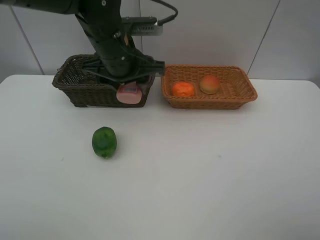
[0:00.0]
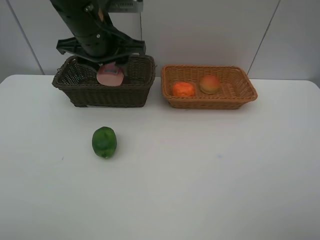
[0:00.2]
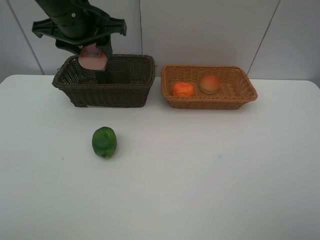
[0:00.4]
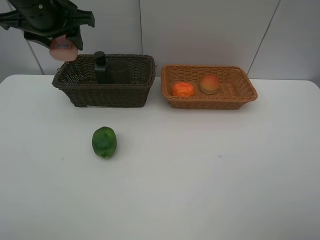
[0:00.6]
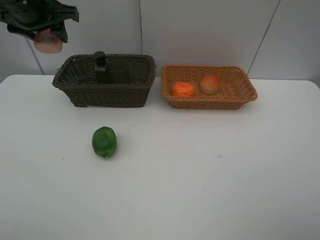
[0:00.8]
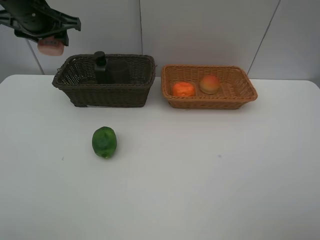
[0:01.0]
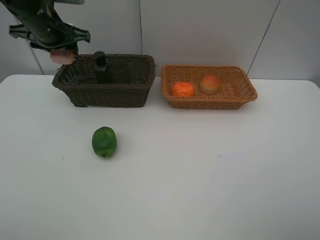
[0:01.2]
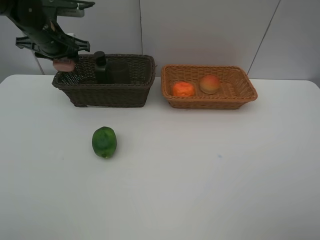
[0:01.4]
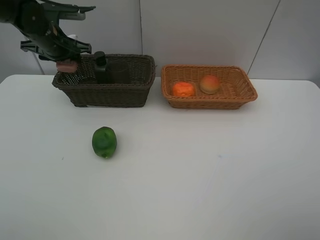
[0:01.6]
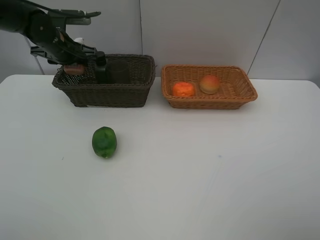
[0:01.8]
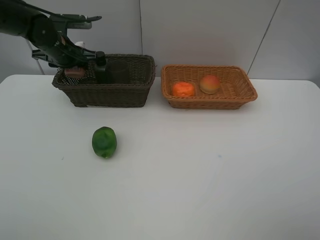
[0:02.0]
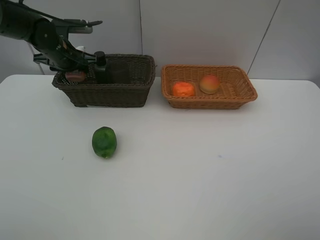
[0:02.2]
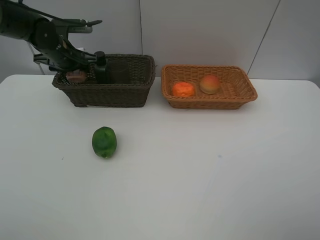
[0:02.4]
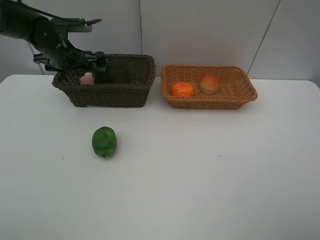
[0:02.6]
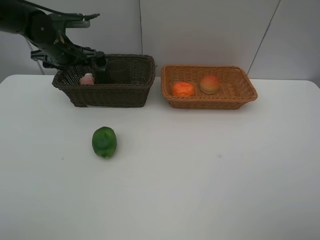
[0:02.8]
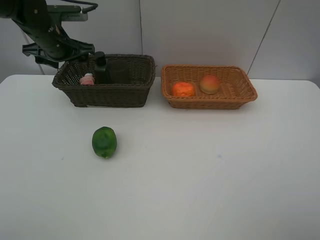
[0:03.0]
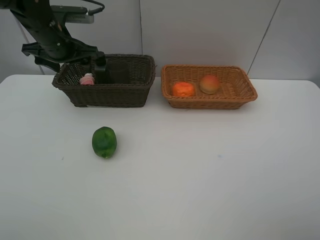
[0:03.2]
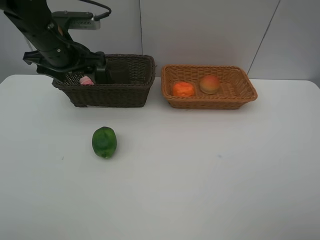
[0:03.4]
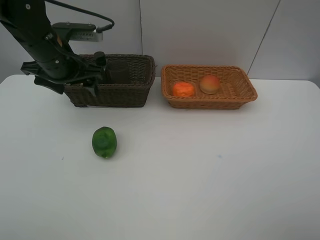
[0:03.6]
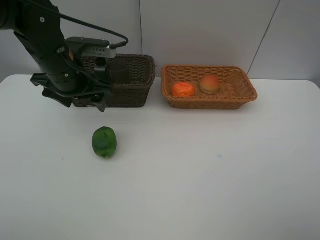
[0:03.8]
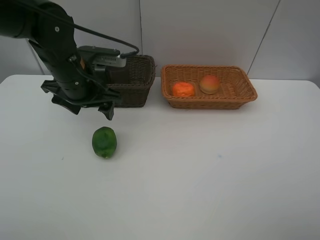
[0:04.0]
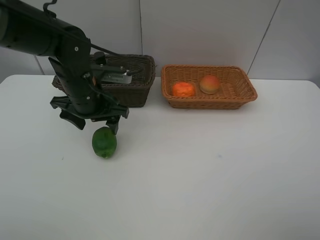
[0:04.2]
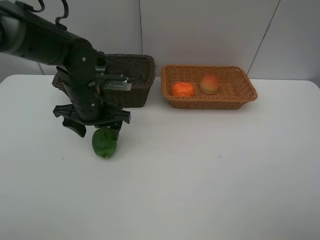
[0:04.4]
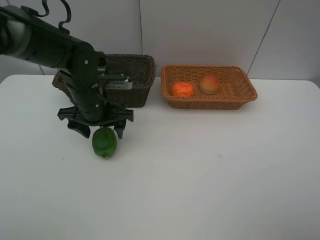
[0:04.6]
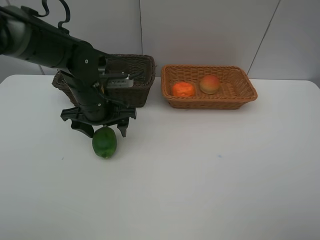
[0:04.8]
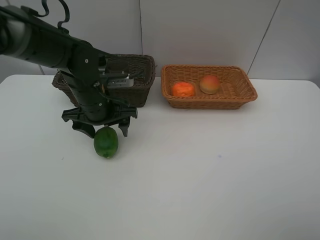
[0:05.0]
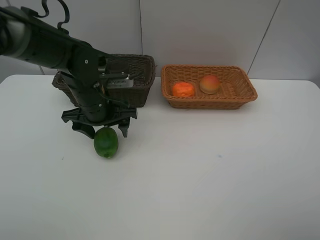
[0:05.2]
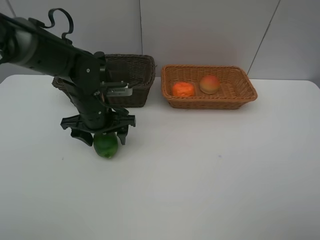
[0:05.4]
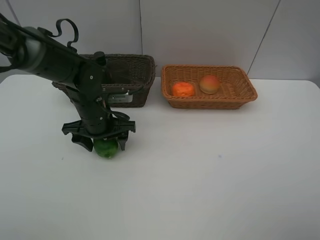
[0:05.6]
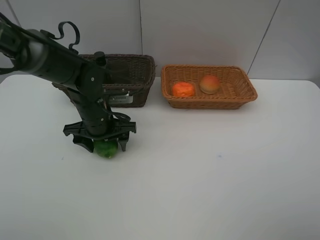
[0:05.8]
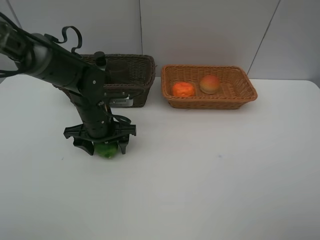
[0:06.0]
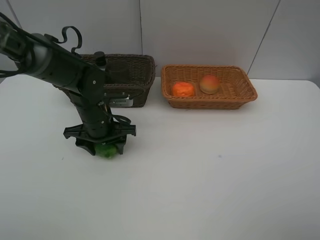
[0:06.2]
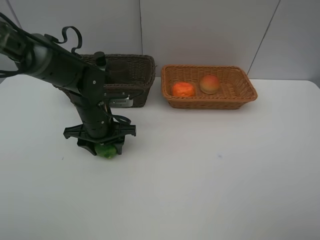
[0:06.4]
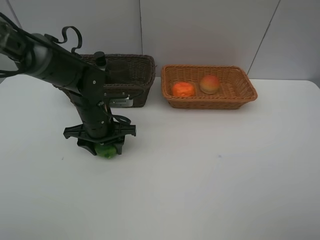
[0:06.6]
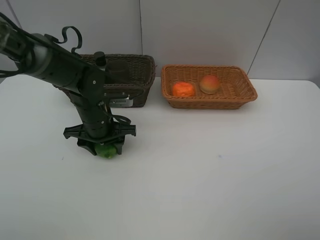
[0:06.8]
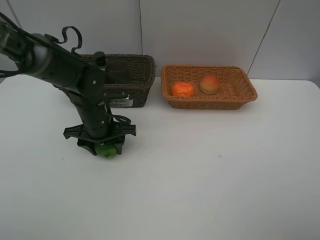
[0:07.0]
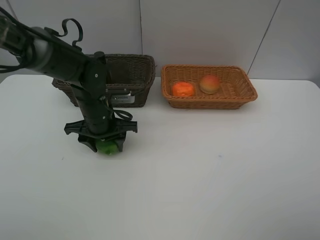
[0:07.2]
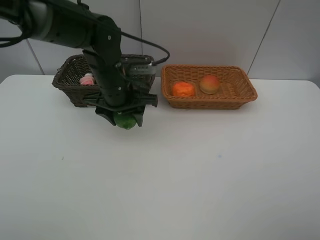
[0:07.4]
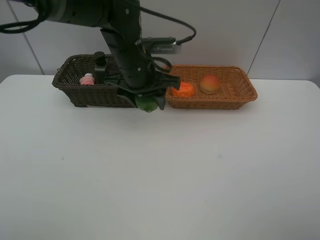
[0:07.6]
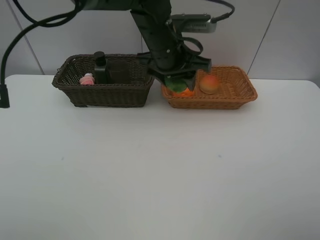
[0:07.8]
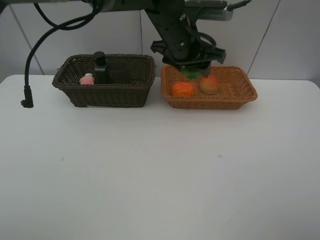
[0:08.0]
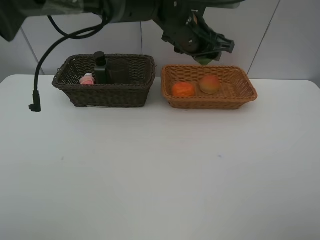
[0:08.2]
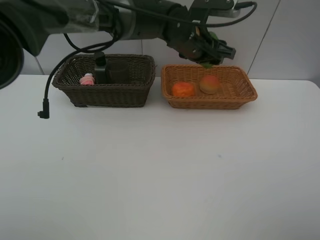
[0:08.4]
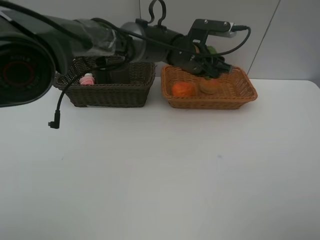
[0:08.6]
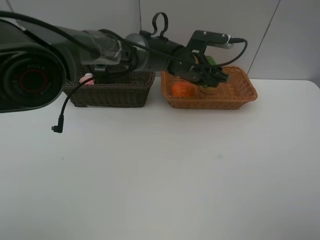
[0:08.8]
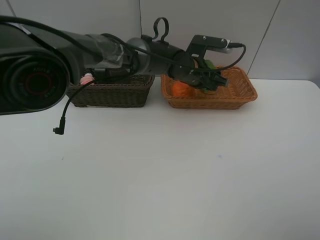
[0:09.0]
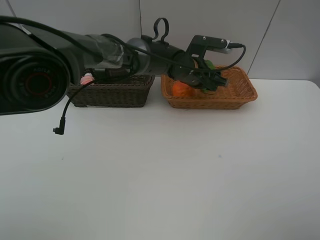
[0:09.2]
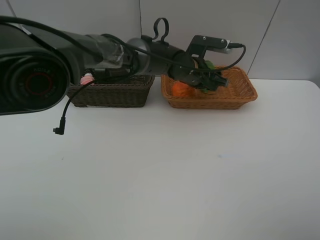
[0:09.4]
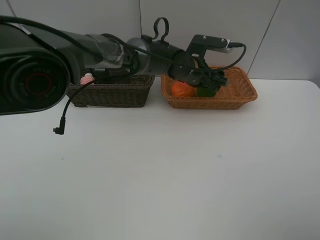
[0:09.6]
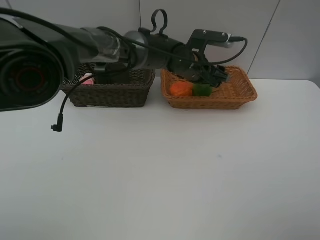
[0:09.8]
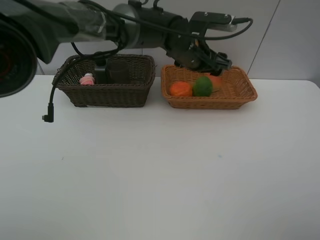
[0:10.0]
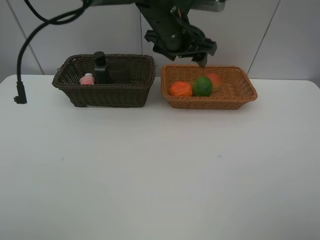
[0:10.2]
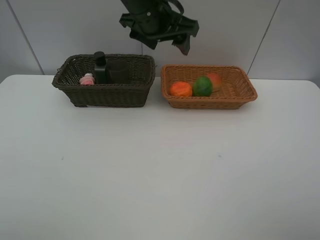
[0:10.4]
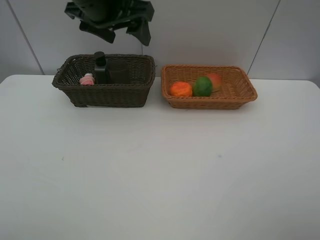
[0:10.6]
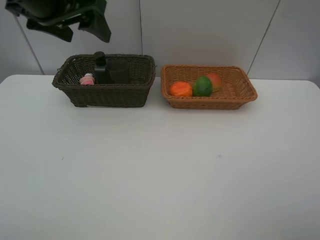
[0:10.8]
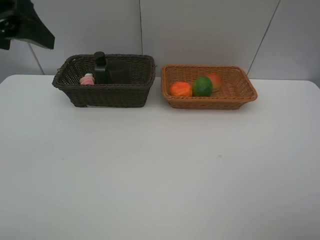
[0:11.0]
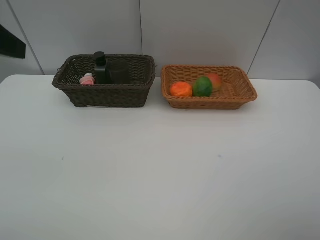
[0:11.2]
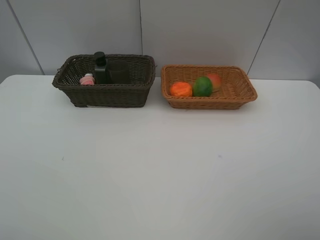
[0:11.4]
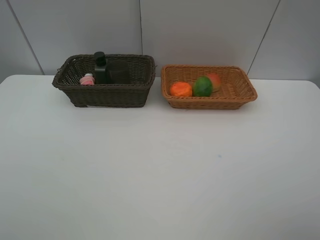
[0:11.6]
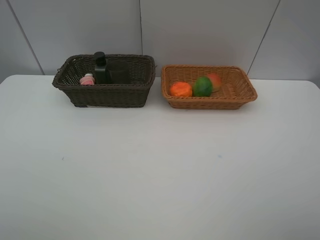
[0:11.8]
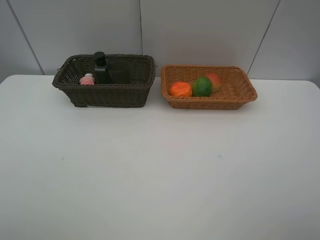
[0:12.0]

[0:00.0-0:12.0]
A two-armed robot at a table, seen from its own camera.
Task of the whole recording: place multiple objects separately in different baskets.
0:00.0 to 0:01.6: The left gripper moves to the left and forward, some 20 cm.
0:01.6 to 0:03.0: The grippers stay close to where they were, moving slightly.
0:03.0 to 0:04.4: The left gripper shifts about 15 cm backward, to the right and downward.
0:04.4 to 0:06.0: The grippers stay close to where they were, moving slightly.
0:06.0 to 0:07.6: The left gripper heads upward and to the right, covering some 15 cm.
0:07.6 to 0:09.0: The left gripper heads to the right, forward and downward, covering some 15 cm.
0:09.0 to 0:10.4: The left gripper is displaced upward and to the left by roughly 20 cm.
0:10.4 to 0:12.0: The left gripper is displaced backward and to the left by roughly 40 cm.
